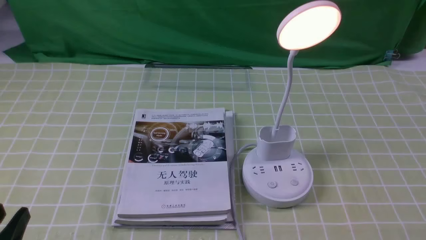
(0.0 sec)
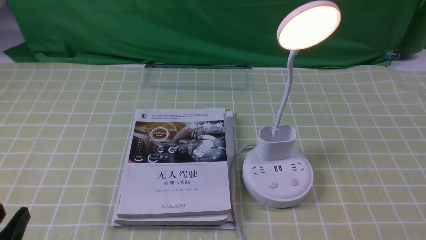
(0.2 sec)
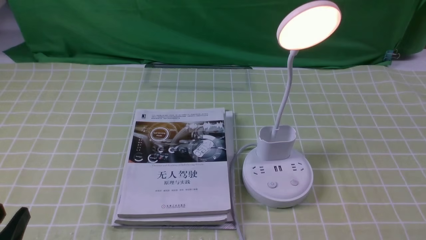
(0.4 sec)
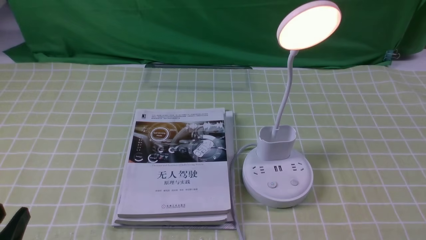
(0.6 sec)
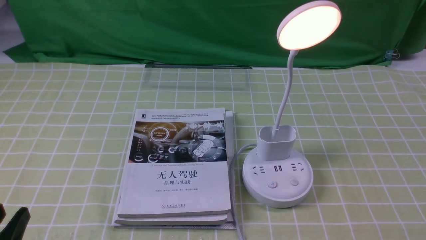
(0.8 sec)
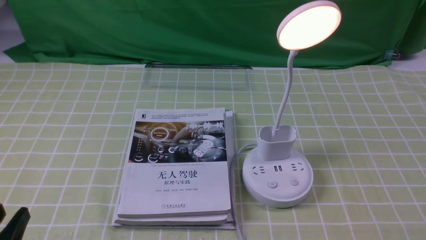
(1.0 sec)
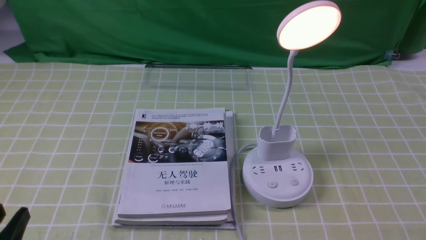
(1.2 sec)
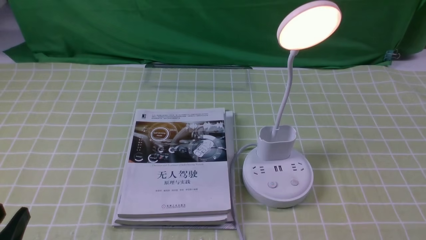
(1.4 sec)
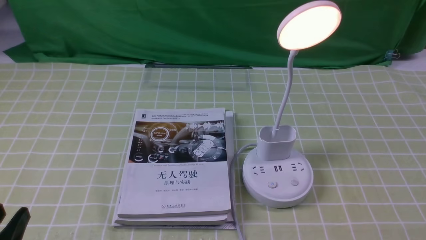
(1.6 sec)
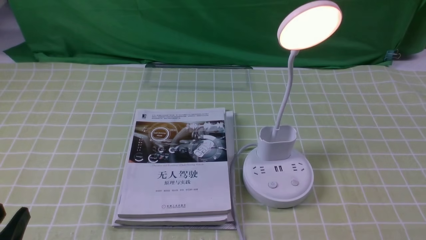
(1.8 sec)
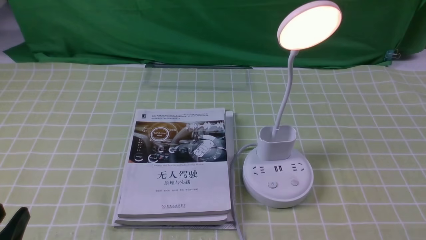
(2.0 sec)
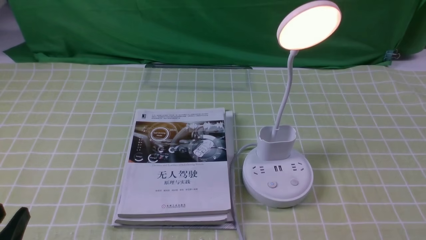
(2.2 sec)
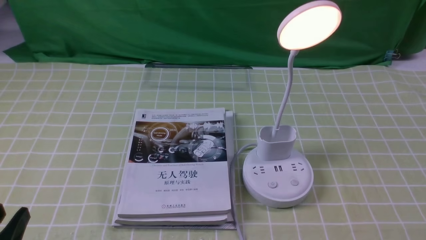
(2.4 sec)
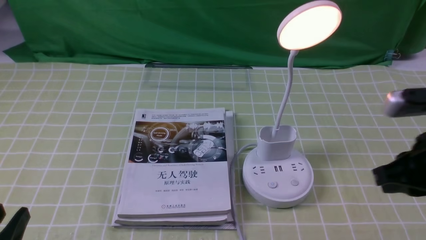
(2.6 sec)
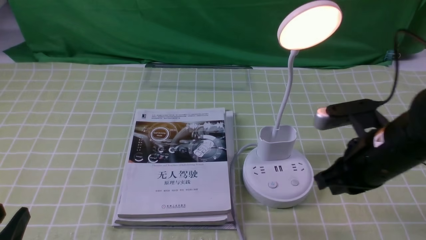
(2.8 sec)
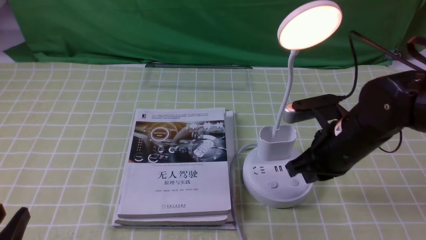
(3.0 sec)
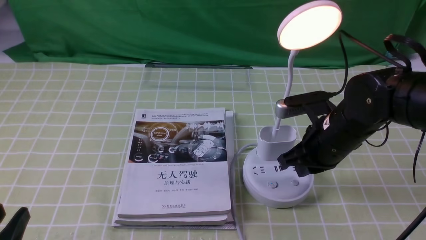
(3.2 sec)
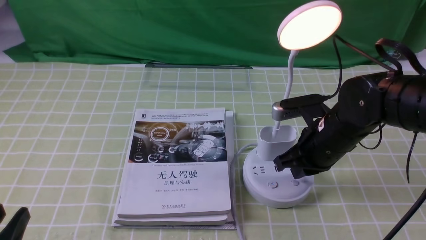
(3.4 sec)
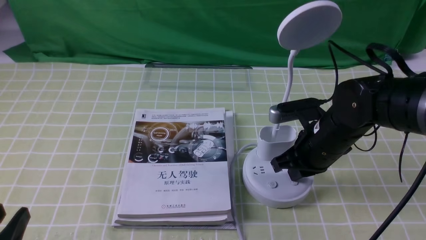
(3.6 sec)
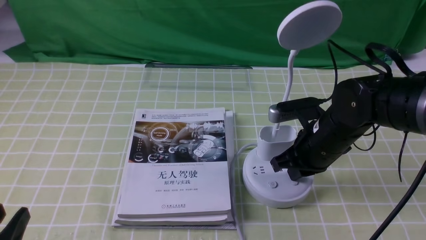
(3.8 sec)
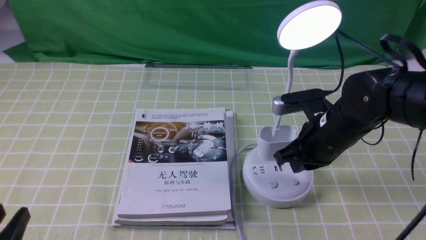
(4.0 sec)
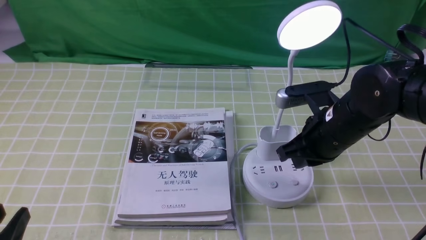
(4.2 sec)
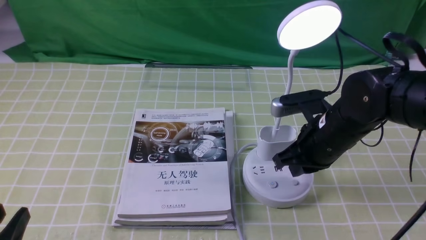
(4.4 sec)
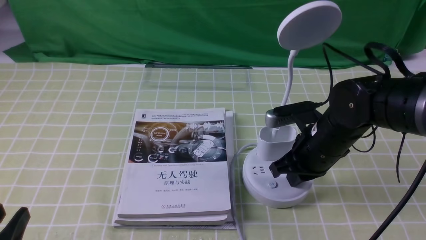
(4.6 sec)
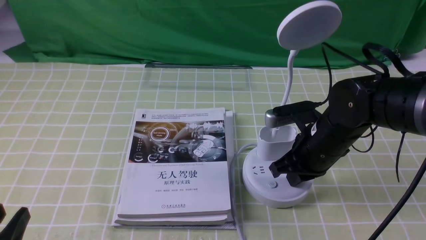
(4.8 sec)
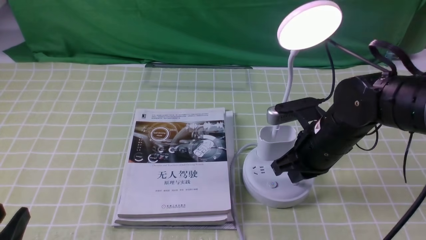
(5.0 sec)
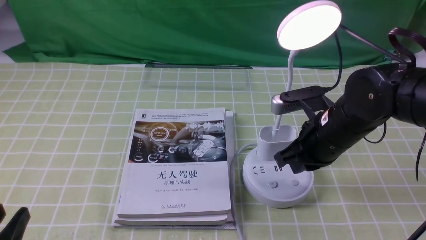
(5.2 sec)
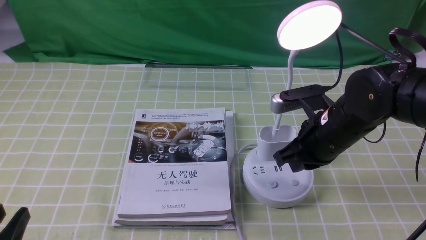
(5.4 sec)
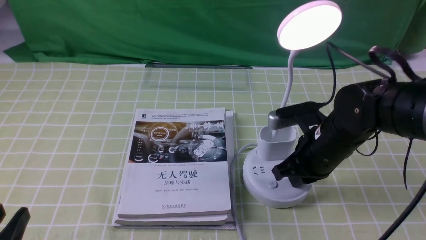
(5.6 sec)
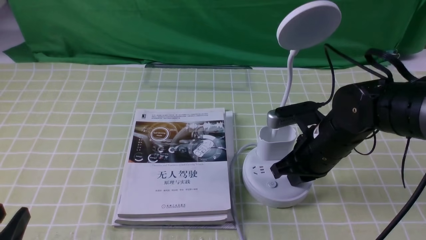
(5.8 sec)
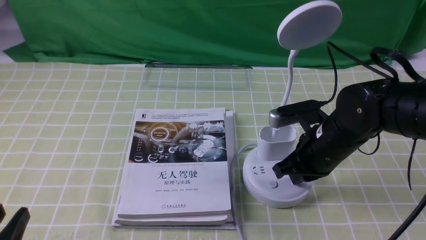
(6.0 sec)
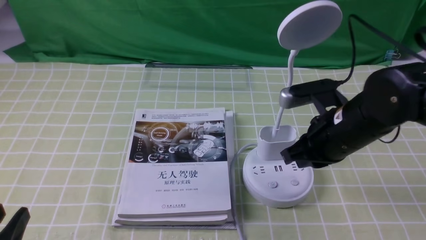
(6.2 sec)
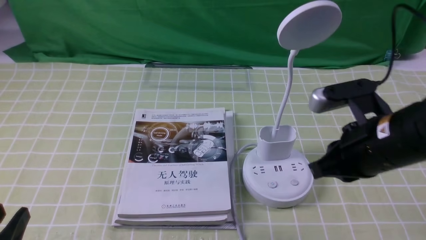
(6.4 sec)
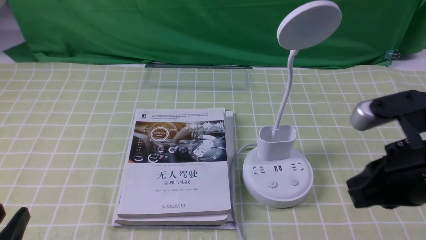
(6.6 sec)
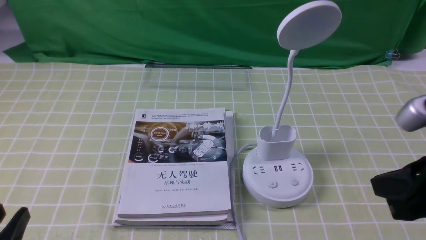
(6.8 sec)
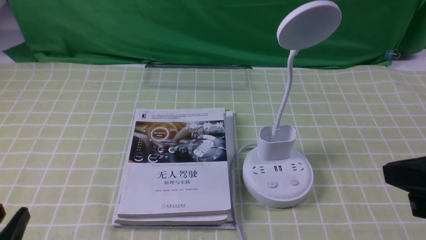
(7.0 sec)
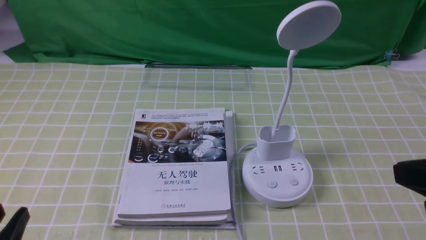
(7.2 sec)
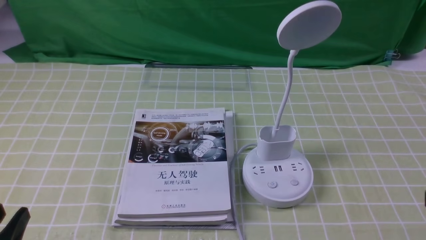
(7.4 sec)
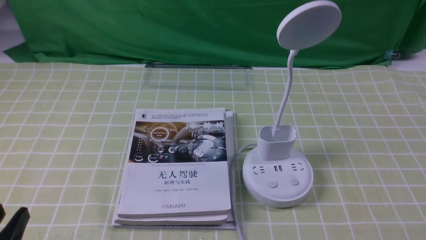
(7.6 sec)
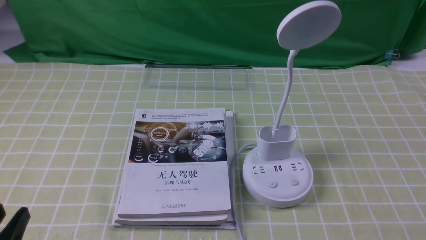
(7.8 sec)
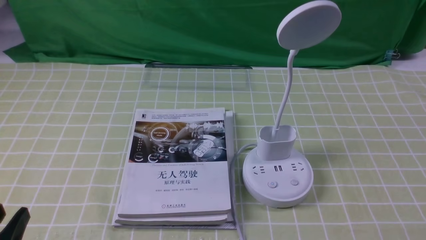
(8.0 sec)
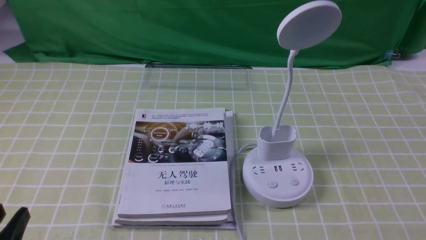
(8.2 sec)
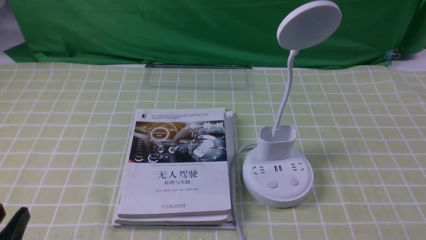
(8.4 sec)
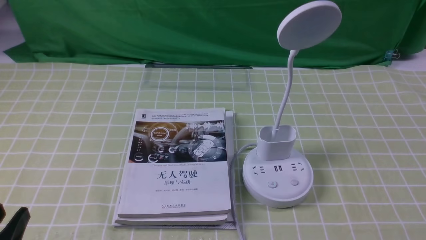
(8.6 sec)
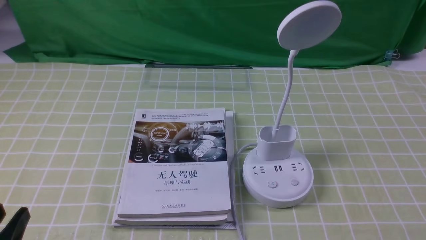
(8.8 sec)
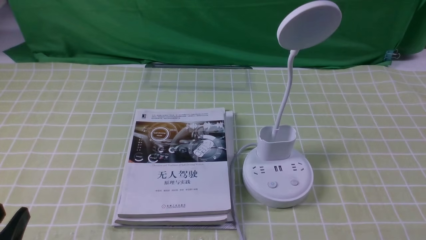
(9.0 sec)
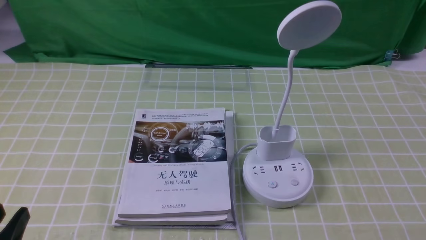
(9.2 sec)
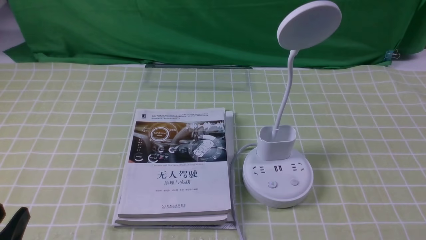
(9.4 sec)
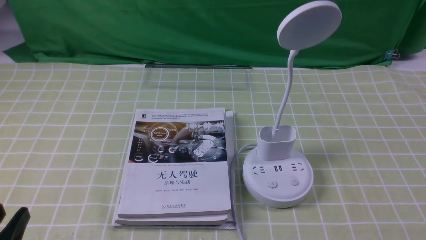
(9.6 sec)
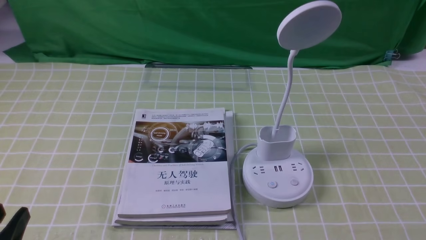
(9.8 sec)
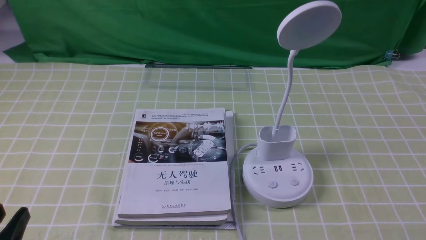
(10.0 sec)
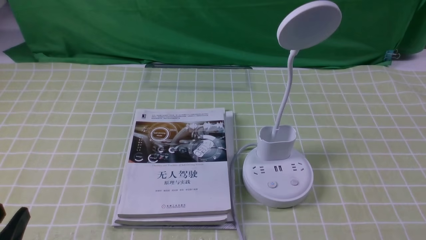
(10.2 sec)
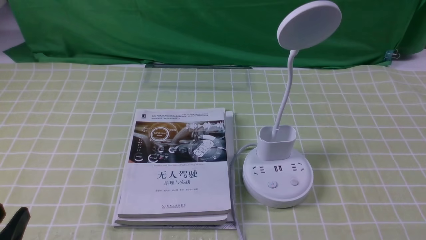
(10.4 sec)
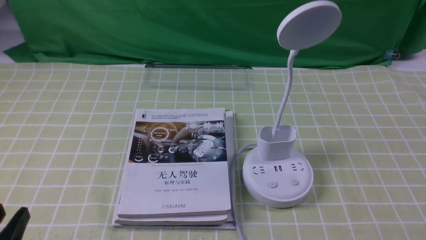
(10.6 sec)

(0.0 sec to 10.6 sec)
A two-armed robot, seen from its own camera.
Task of the whole recording: turn off the desk lamp on the green coffee tablecloth by hand.
Step, 0.0 sec - 6.2 sec: use the right arm to press the button switch on the lamp holder.
1.6 sec - 3.0 sec: The right gripper goes approximately 30 cm forward and to the left, and closes.
3.0 sec - 6.0 sec: The grippers make only small movements.
6.0 sec - 7.6 sec: The right gripper goes about 30 cm backward and to the right.
